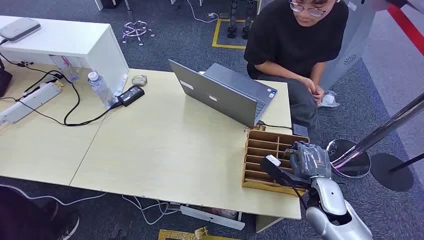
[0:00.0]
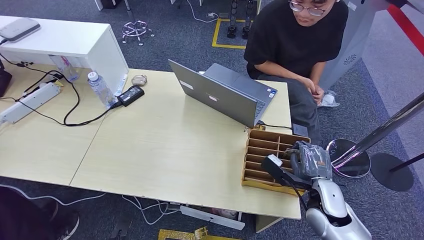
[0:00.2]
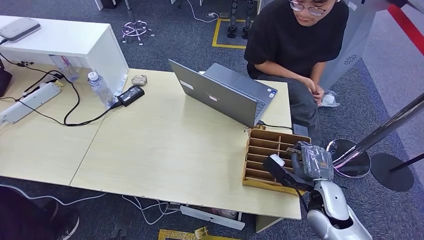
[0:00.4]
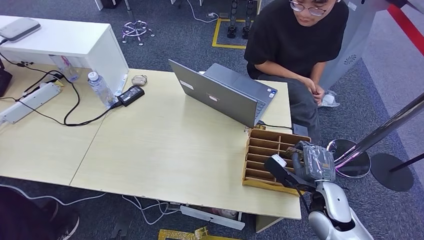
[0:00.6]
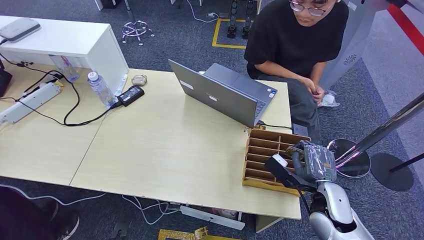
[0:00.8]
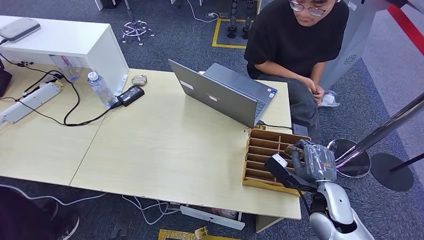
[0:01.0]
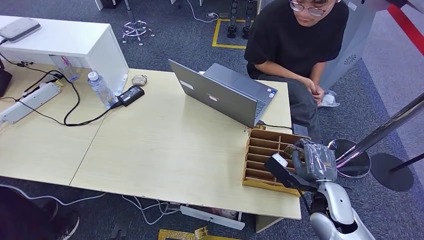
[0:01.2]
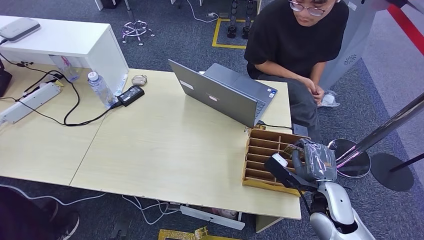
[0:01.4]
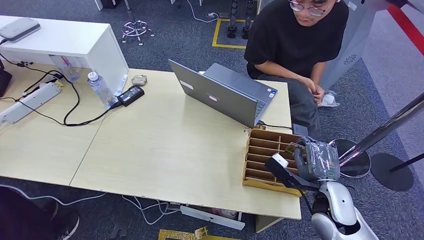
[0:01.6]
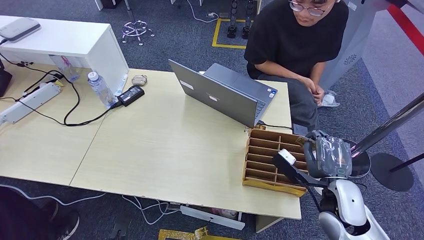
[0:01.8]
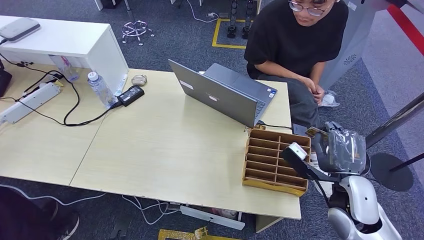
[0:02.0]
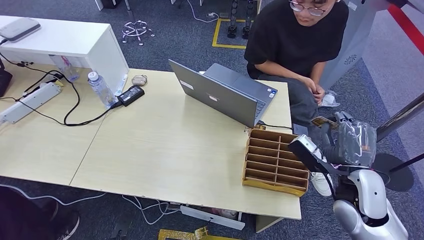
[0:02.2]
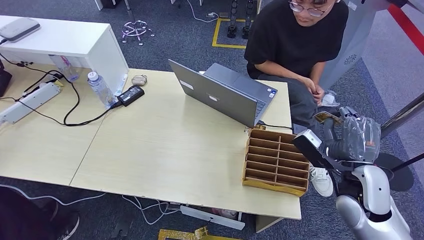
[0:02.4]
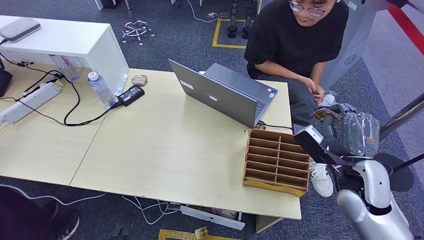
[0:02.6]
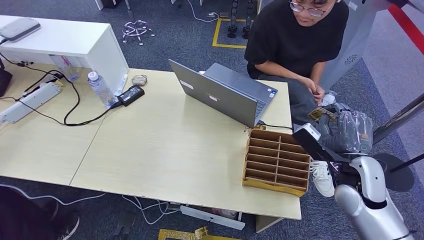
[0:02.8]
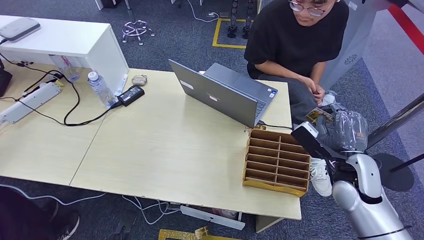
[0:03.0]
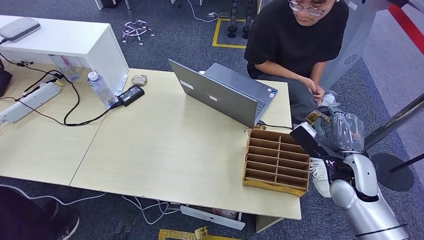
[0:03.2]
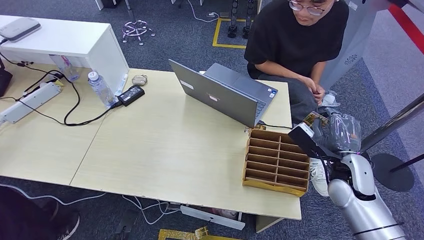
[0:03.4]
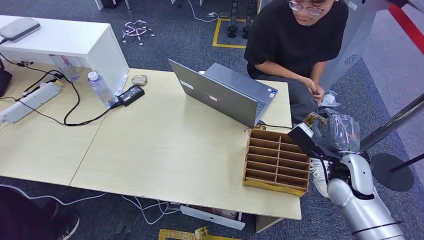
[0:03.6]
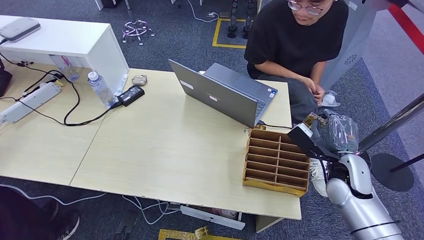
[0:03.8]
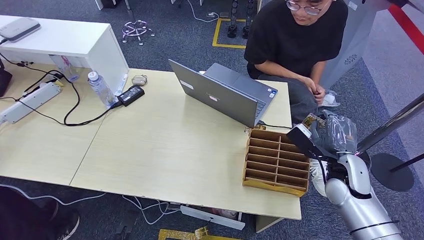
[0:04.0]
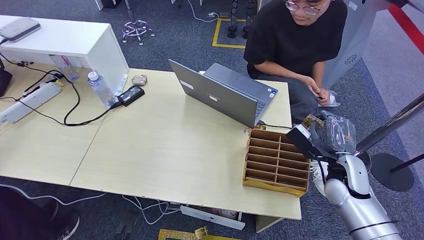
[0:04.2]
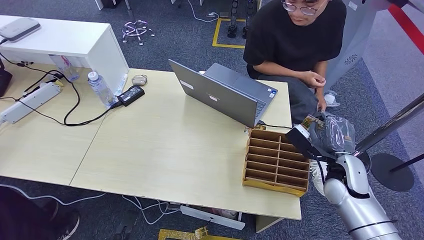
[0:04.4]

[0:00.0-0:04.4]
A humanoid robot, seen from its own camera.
Step, 0:00.0 to 0:02.0: Pick up the key card from the card box.
Step, 0:02.2 to 0:04.4: Hand the key card to the target.
0:01.4 to 0:03.0: The right hand moves forward and upward, approximately 10 cm.
0:03.0 to 0:04.4: The hands make only small movements.
